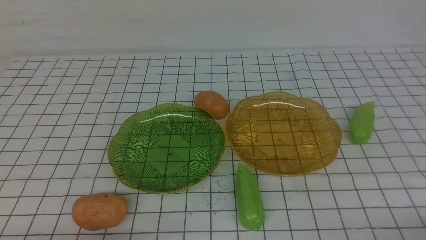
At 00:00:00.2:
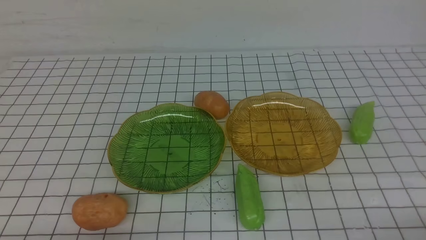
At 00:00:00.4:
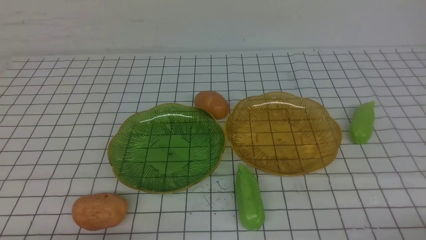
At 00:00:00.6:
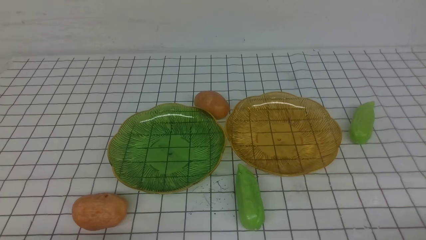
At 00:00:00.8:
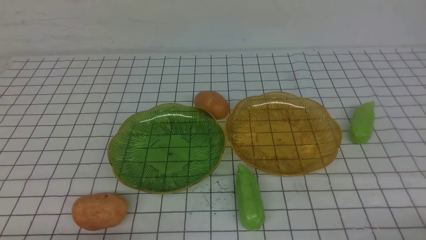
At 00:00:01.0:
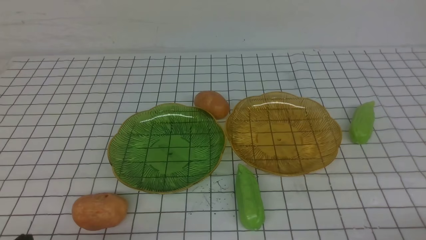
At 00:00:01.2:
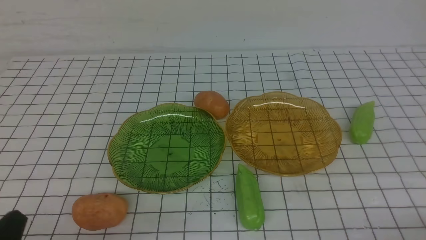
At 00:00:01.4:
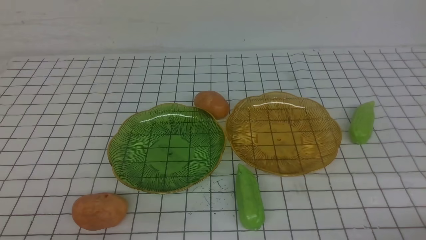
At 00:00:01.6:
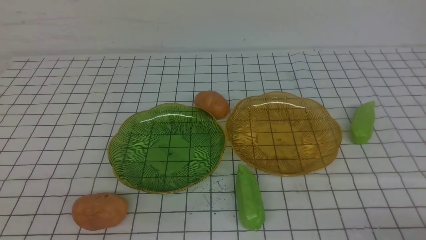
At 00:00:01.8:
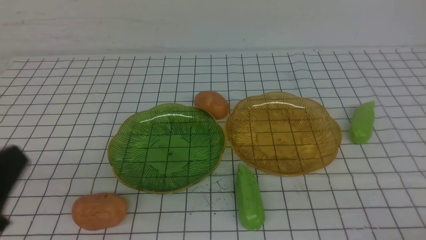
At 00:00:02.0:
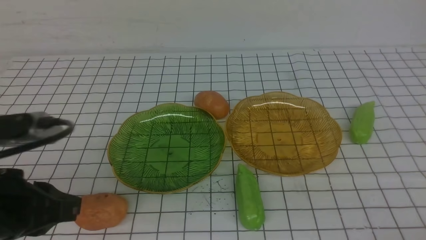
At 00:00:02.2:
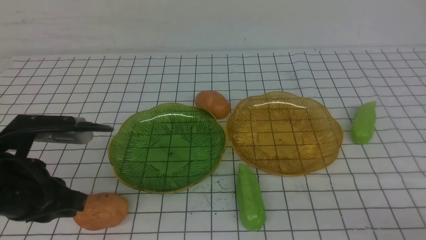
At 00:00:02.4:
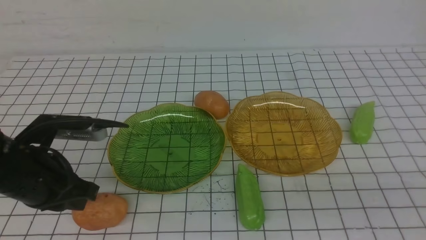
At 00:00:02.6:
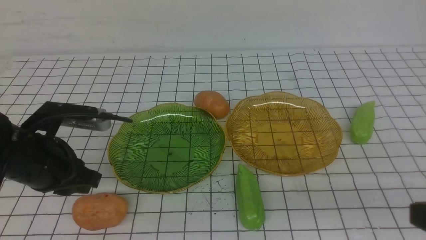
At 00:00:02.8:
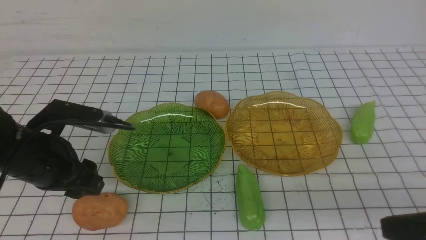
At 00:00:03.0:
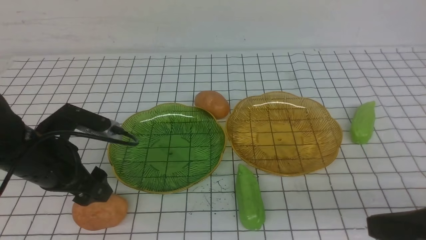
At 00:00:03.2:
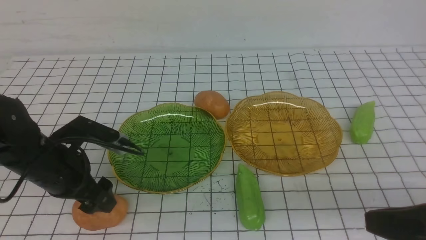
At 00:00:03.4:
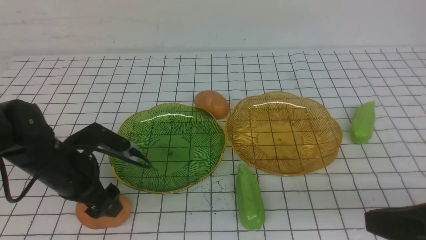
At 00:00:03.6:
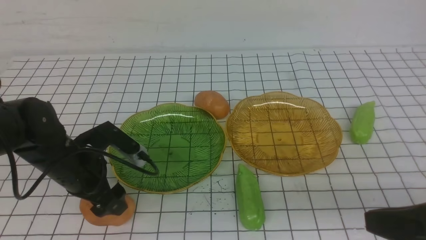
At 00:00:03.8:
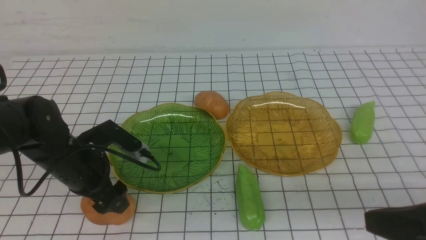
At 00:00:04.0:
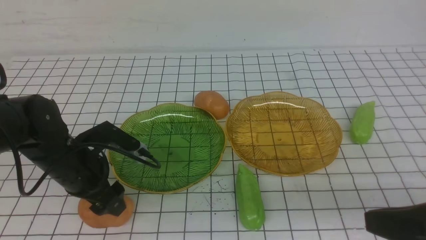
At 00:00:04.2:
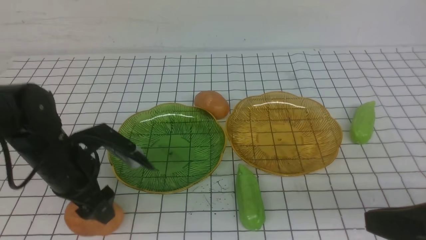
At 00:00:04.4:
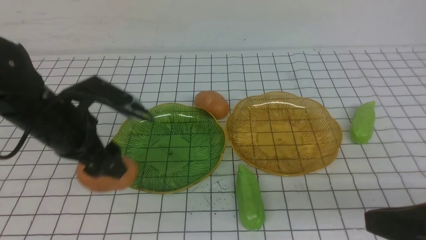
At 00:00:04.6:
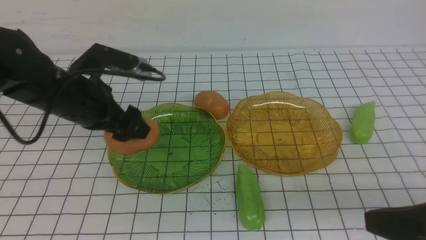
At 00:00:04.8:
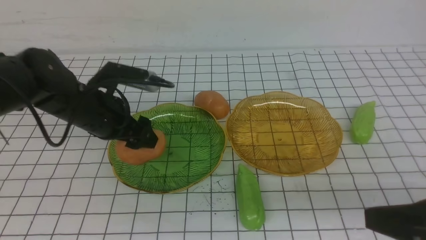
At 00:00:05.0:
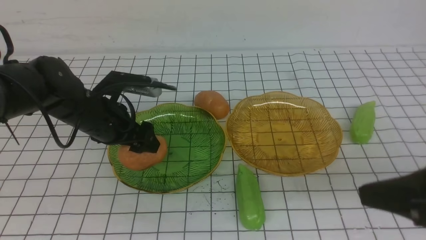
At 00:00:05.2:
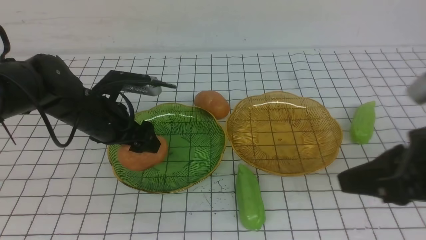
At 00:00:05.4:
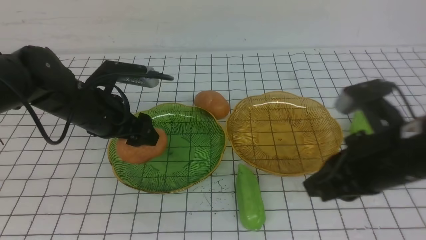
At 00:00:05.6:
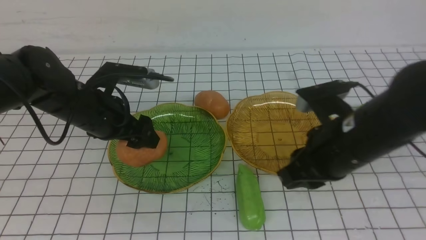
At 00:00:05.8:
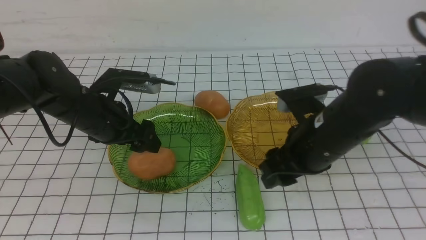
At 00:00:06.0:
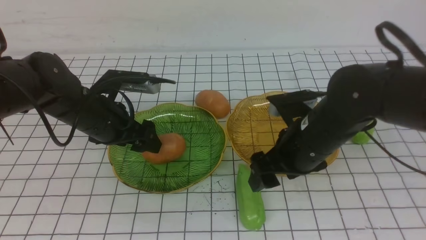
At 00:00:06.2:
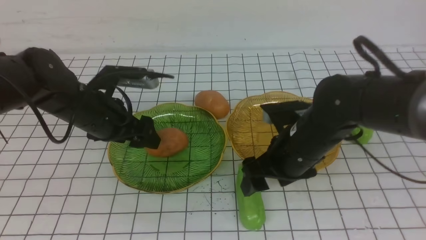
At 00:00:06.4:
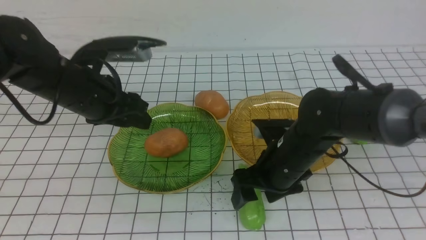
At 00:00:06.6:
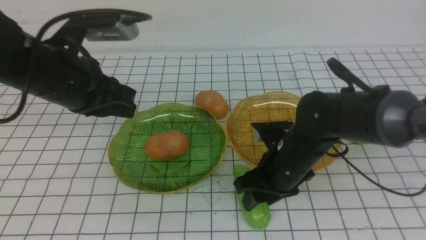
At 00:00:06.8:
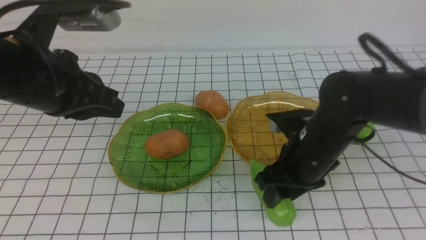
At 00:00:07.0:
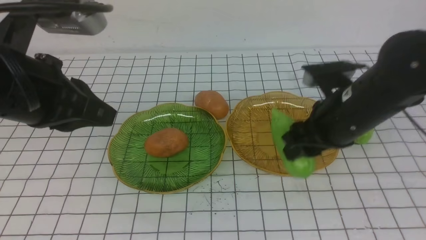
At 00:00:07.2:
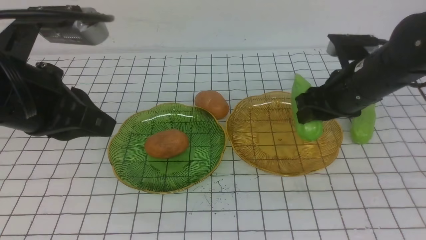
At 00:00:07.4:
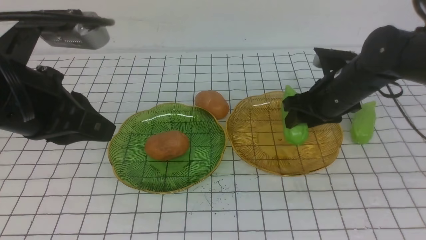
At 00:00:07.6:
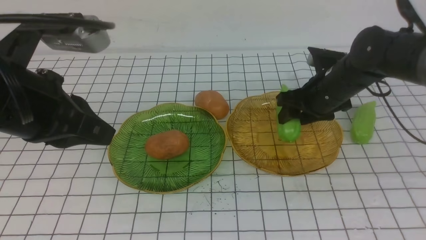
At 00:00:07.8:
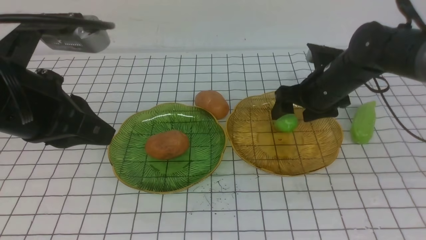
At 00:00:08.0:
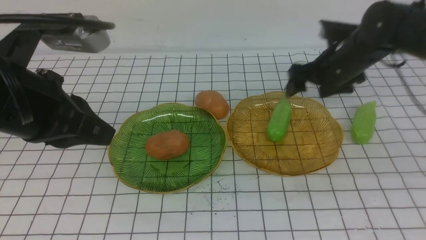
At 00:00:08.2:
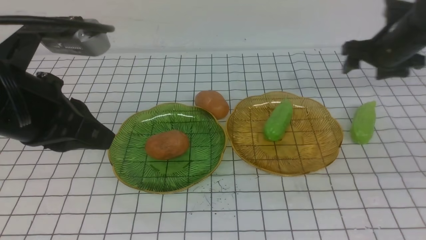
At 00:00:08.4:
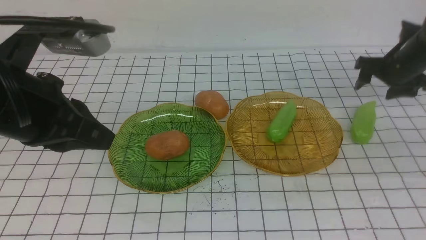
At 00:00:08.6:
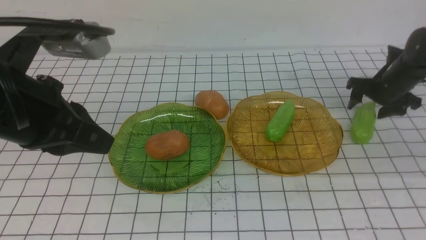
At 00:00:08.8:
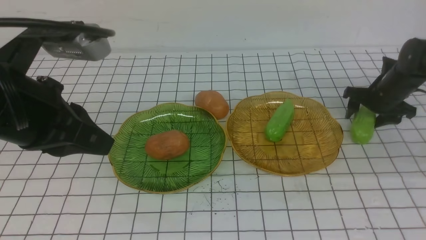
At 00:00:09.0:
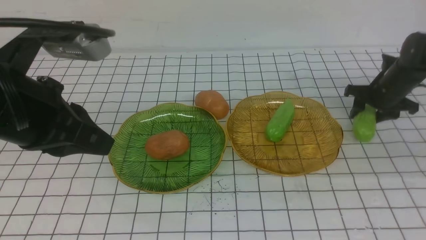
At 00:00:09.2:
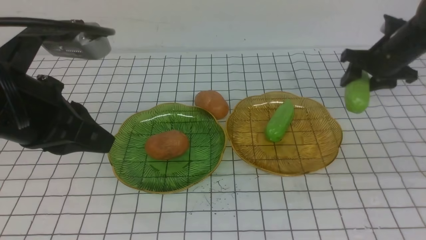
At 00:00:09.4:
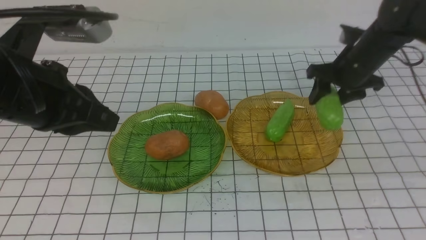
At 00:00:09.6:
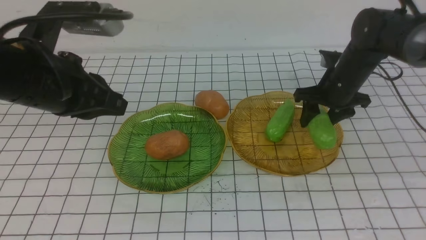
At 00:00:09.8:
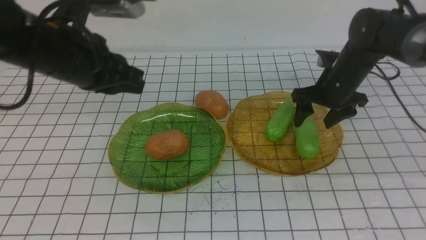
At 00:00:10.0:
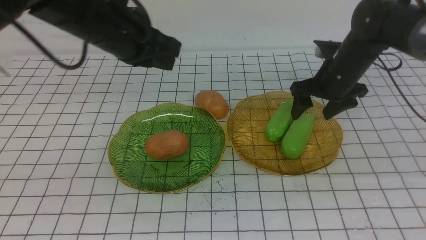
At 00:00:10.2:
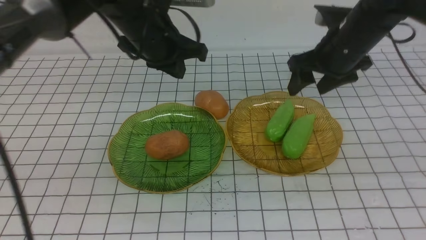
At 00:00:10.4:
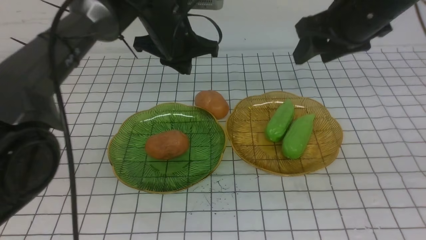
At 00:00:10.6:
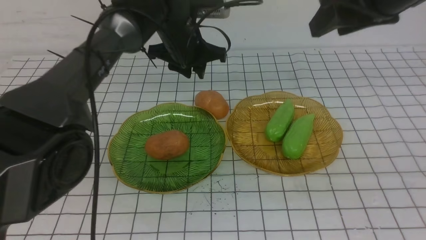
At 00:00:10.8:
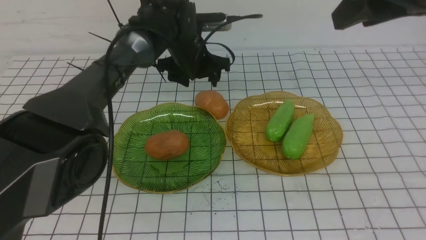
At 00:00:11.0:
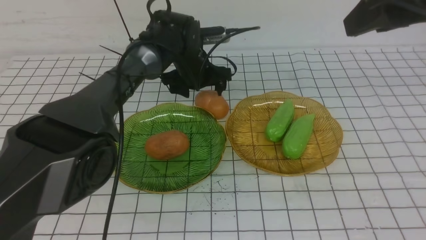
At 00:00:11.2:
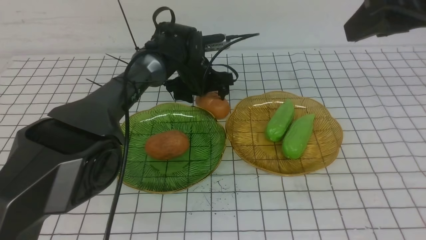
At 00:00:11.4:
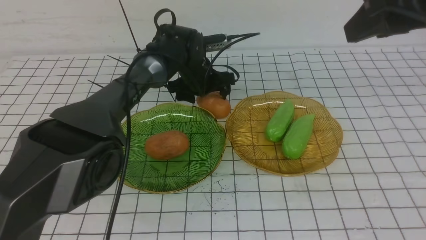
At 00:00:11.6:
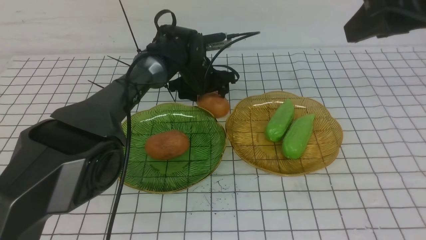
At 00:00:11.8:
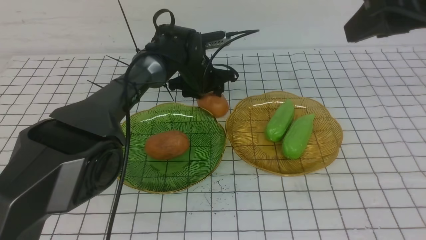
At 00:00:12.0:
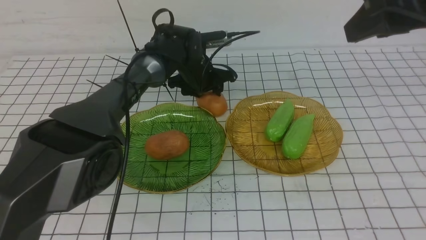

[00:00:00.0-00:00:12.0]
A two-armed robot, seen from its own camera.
Step, 00:00:00.0 to 00:00:06.2: Grab a potato with your left arm and put it on the left plate.
Step, 00:00:06.4 to 00:00:09.8: use the right arm to grab a chayote and put it into the right plate.
00:00:01.6 to 00:00:03.0: The left gripper travels forward by some 20 cm, and opens its fingers. Meanwhile the right gripper is displaced upward and to the left by about 15 cm.
00:00:03.0 to 00:00:04.4: The grippers make only small movements.
00:00:04.4 to 00:00:06.0: The right gripper moves forward and to the left, approximately 20 cm, and opens up, while the left gripper goes some 5 cm forward.
00:00:06.0 to 00:00:07.6: The left gripper goes about 20 cm upward and backward, and closes up. Meanwhile the right gripper shifts roughly 15 cm forward and to the right.
00:00:07.6 to 00:00:09.0: The right gripper goes about 15 cm to the right and forward.
00:00:09.0 to 00:00:10.4: The left gripper moves forward and to the right, about 25 cm; the right gripper heads upward, to the left and backward, covering some 25 cm.
00:00:10.4 to 00:00:12.0: The left gripper shifts about 15 cm downward and forward, and opens, while the right gripper travels backward and upward by approximately 15 cm.

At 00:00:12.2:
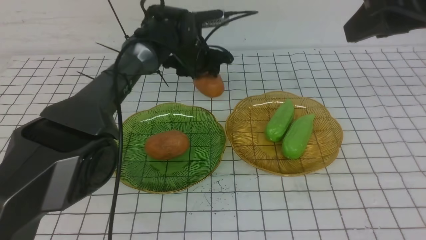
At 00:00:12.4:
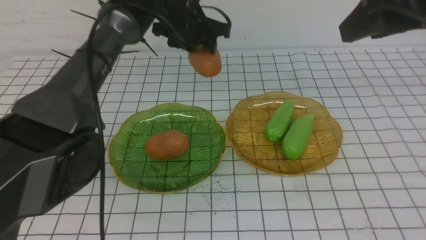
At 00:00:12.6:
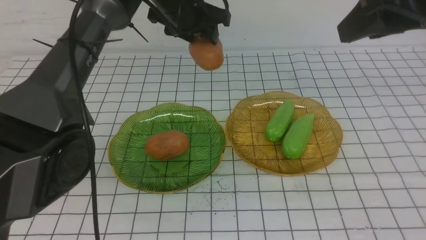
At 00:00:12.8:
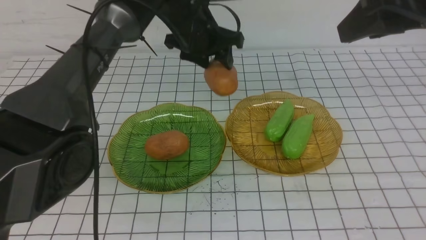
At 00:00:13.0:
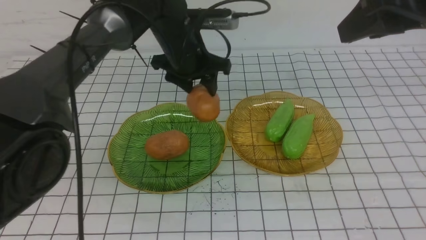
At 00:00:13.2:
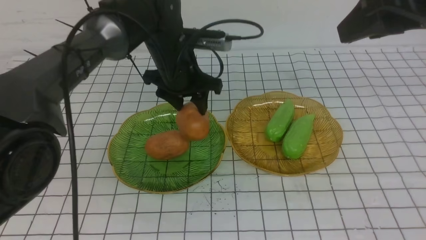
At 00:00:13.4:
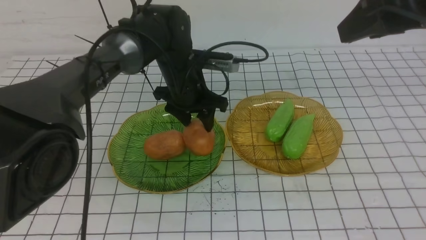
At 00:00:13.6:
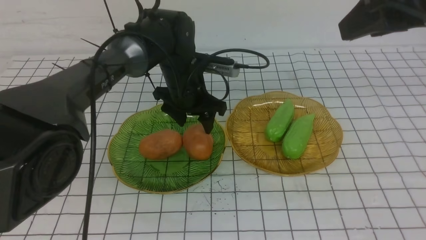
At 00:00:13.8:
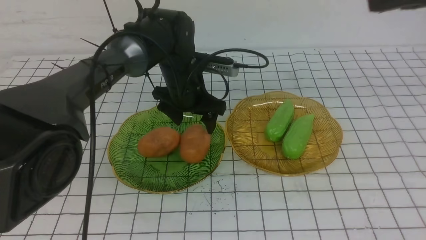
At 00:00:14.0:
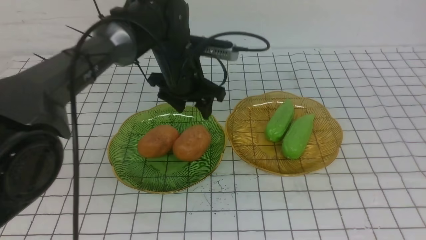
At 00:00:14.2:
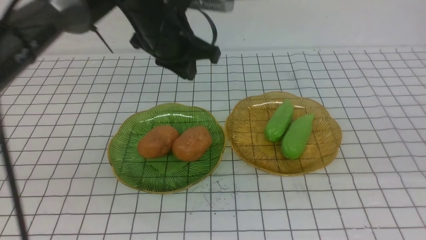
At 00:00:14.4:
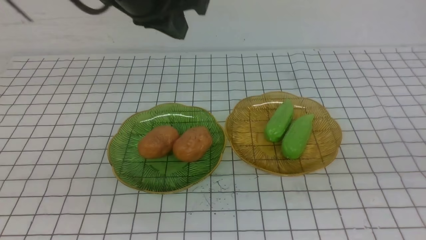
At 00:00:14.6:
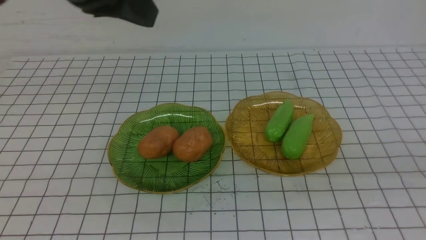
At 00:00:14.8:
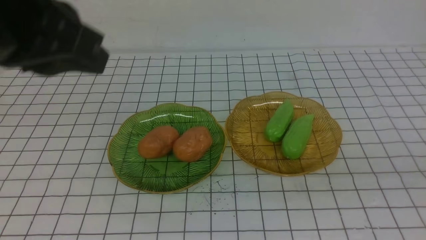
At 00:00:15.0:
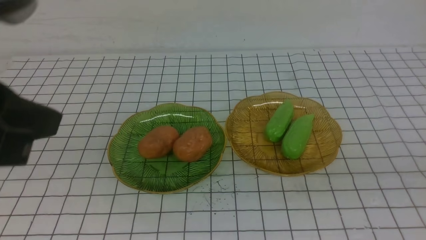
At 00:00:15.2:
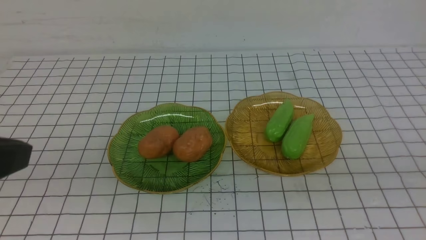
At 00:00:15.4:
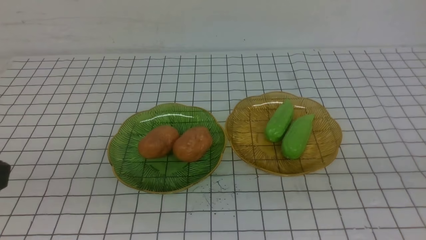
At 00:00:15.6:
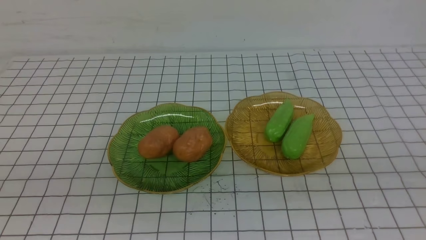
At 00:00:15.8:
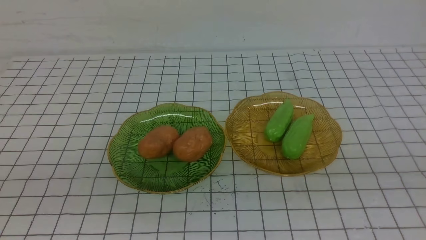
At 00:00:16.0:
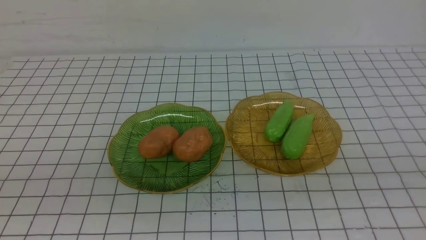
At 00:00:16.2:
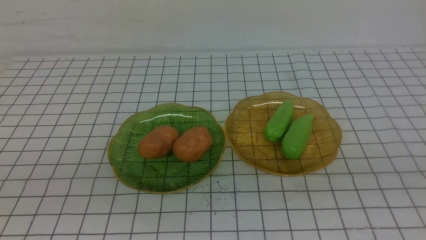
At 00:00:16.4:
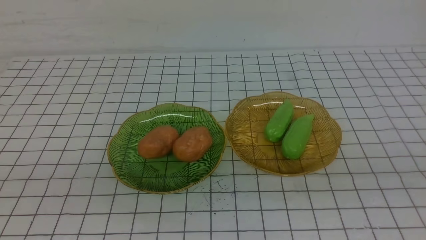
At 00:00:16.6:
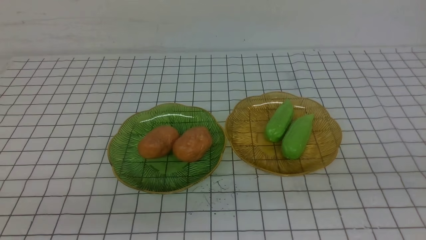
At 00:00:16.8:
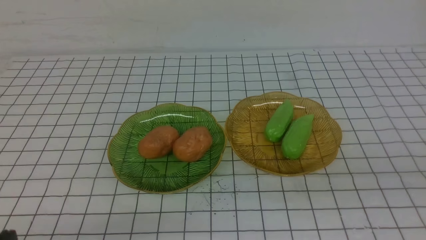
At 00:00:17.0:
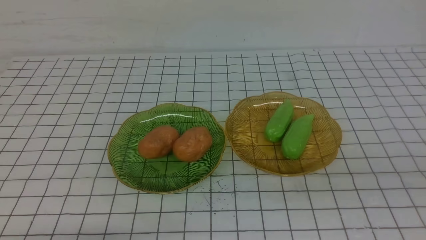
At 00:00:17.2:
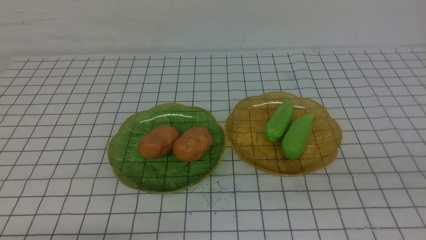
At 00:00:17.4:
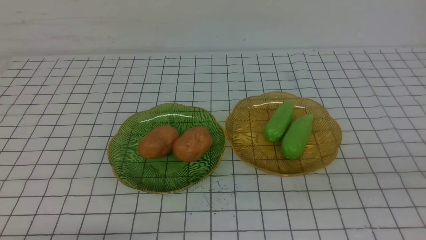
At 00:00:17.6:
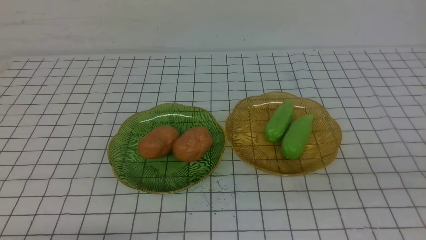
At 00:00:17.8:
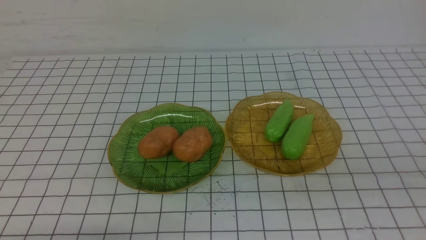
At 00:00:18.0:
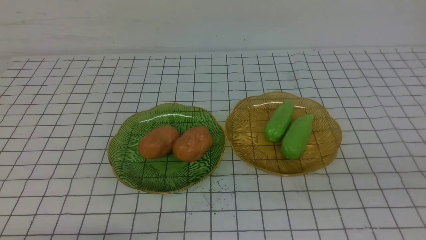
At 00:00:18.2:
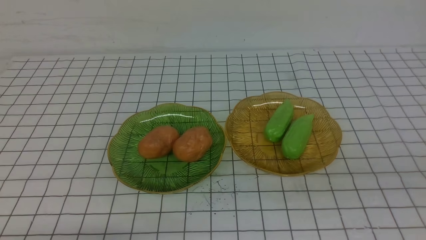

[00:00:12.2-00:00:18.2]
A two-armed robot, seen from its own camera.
00:00:12.2 to 00:00:13.8: The right gripper moves roughly 5 cm. Meanwhile the left gripper moves backward, roughly 10 cm, and travels upward and back again, about 10 cm each way.
00:00:13.8 to 00:00:15.2: The left gripper is displaced backward, upward and to the left by approximately 40 cm, and closes up, while the right gripper heads backward, downward and to the right, covering about 20 cm, and closes up.
00:00:15.2 to 00:00:16.6: The left gripper shifts about 15 cm downward and backward.
